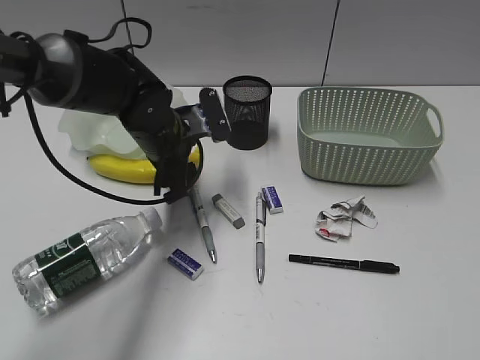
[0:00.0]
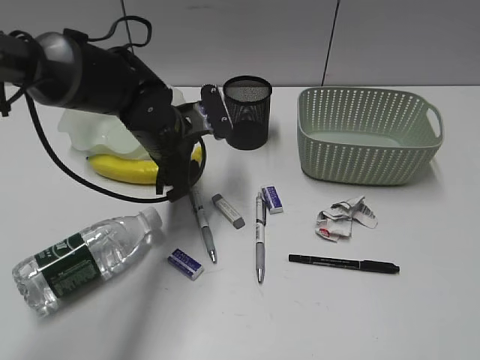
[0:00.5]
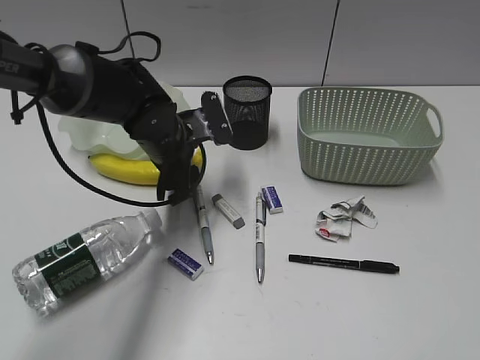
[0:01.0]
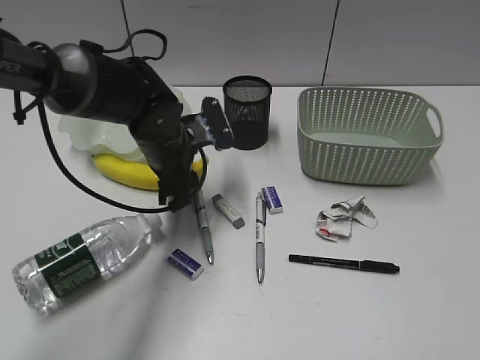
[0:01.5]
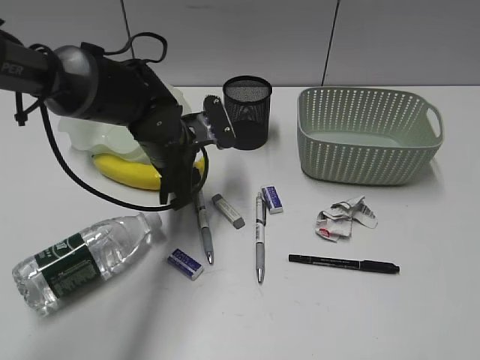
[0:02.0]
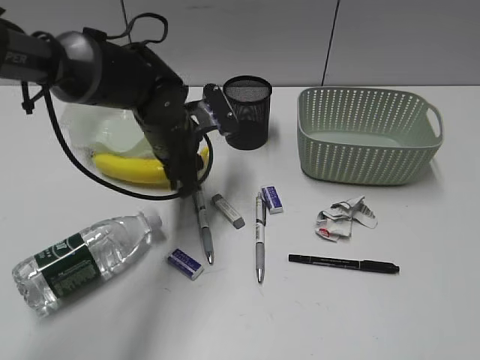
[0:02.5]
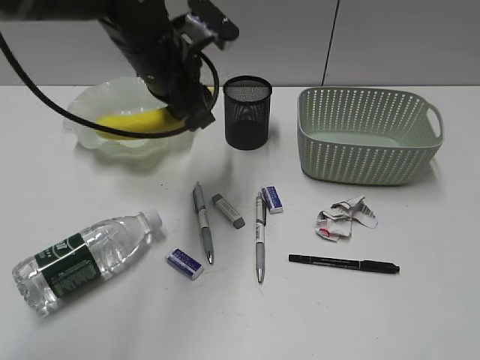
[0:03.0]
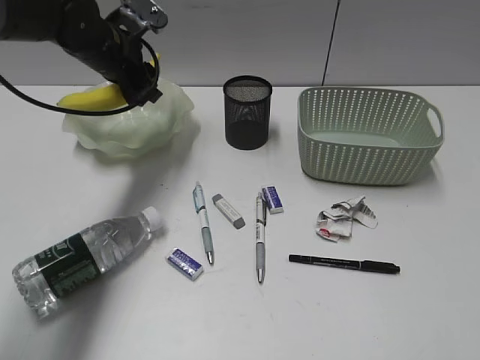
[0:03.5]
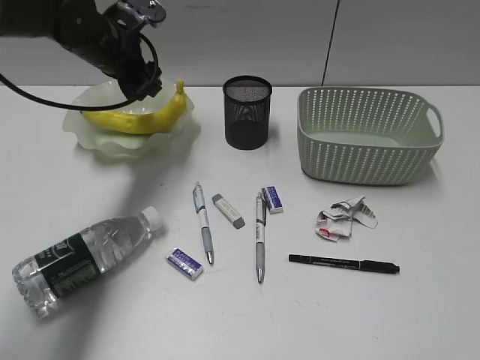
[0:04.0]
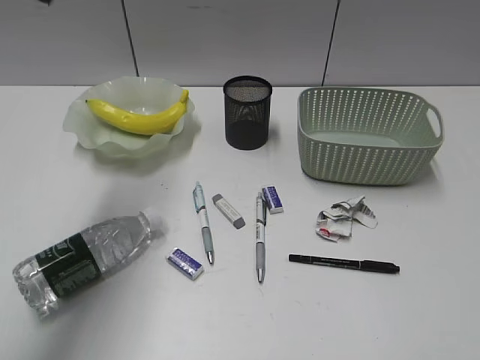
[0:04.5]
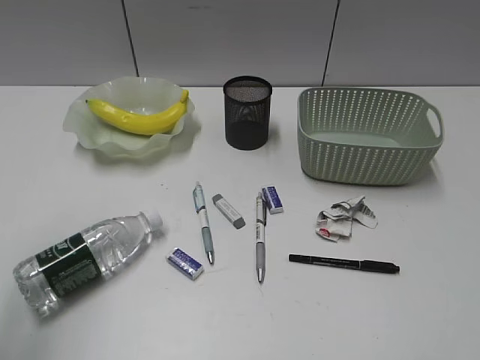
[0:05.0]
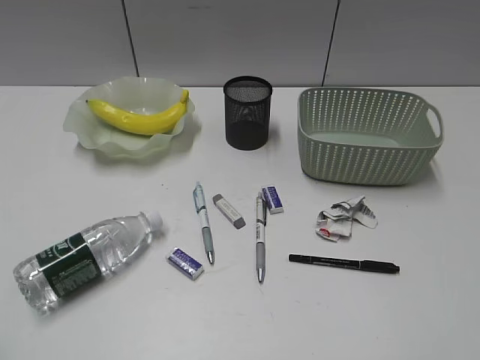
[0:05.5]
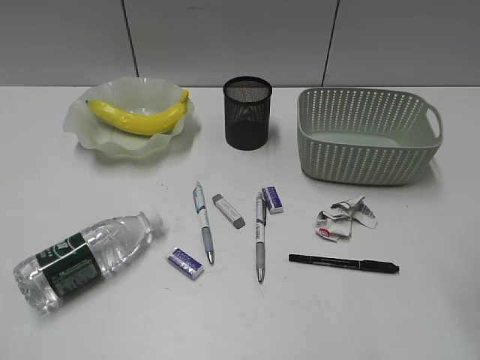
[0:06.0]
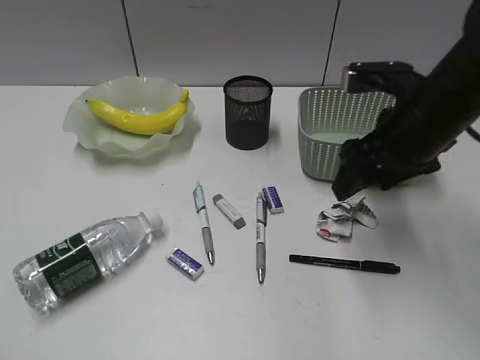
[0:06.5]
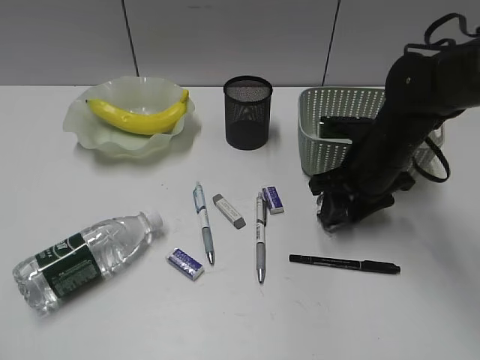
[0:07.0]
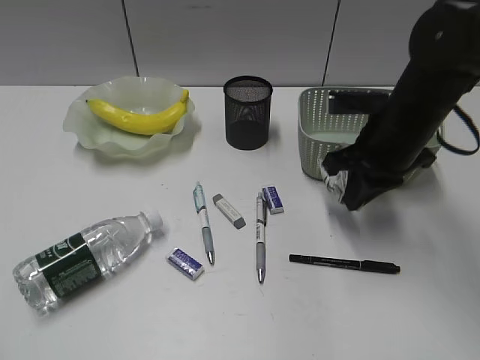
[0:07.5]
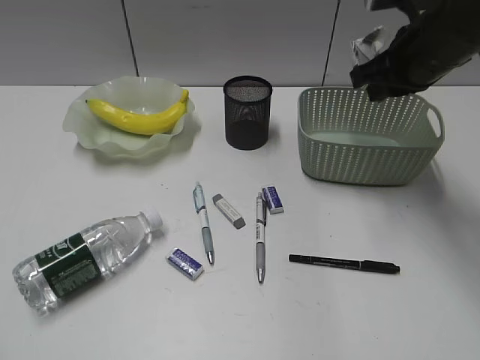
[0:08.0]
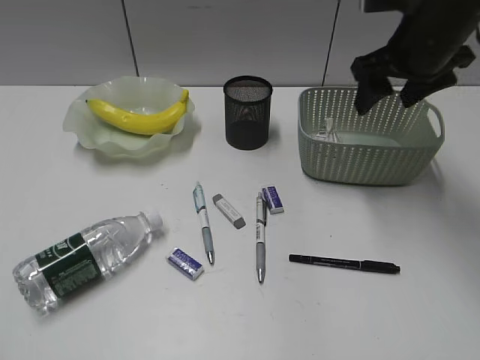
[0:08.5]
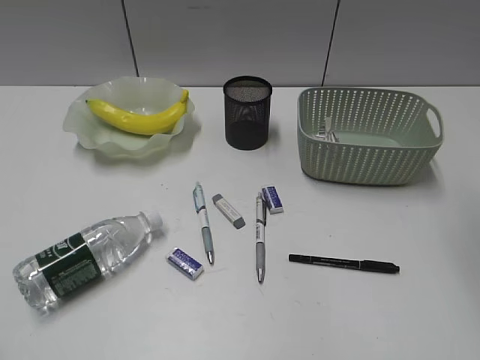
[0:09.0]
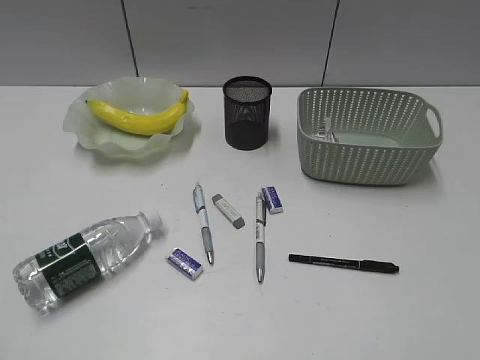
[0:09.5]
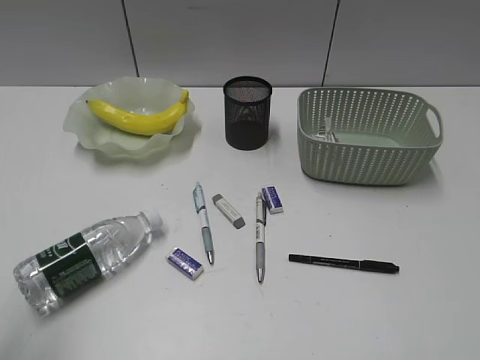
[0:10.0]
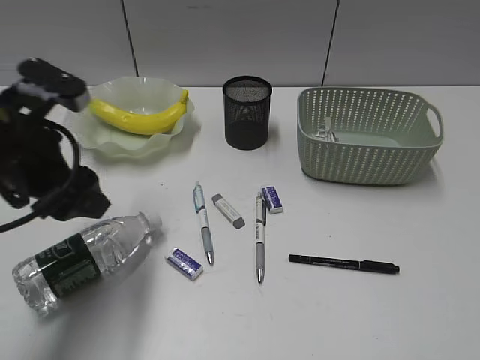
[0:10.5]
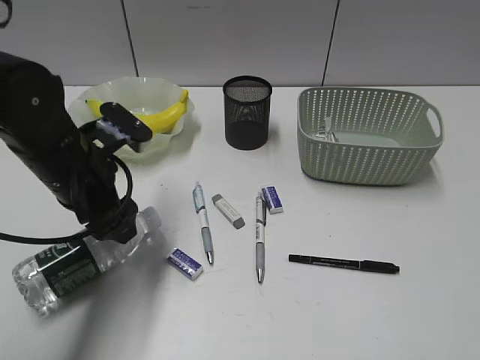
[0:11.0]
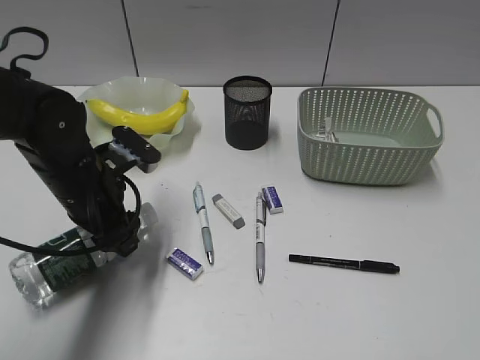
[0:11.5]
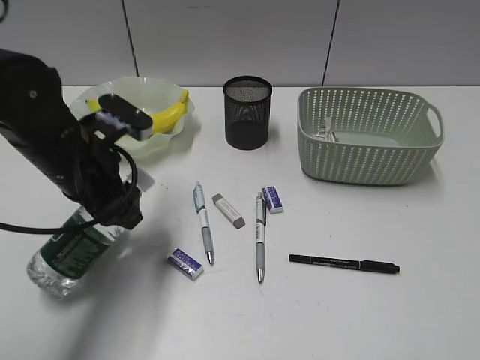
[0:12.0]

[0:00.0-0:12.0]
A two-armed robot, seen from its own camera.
Step, 0:00.0 to 0:02.0: Grasp the banana with left gripper.
Step, 0:02.5 to 0:03.5: Place the banana in the plate with left gripper.
Step, 0:04.0 to 0:07.0: Grasp the waste paper with right gripper.
Step, 0:07.5 to 0:08.0: Place the waste paper in the basket with right gripper.
Step, 0:08.5 to 0:11.5: Grasp the bottle with left gripper.
0:00.0 to 0:02.0: Neither gripper changes place.
0:02.0 to 0:04.0: The left gripper travels upward, forward and to the left by roughly 15 cm.
0:04.0 to 0:06.0: The right gripper shifts some 10 cm forward; the left gripper goes about 50 cm backward, and closes.
0:06.0 to 0:08.0: The right gripper is displaced forward by approximately 25 cm, and closes.
0:08.0 to 0:10.0: The left gripper shifts about 5 cm forward. The right gripper moves backward, roughly 35 cm, and opens up.
0:10.0 to 0:12.0: The left gripper is displaced forward, downward and to the right by approximately 30 cm.

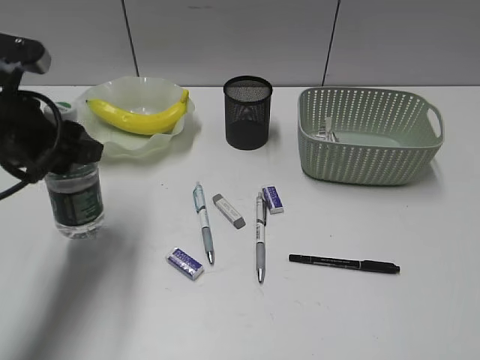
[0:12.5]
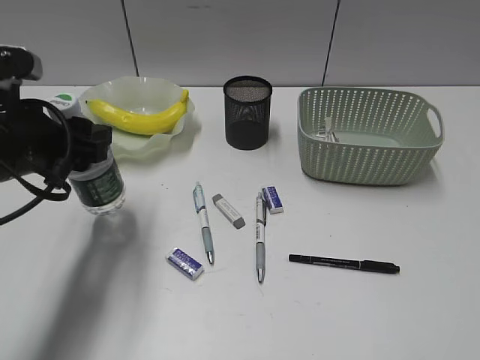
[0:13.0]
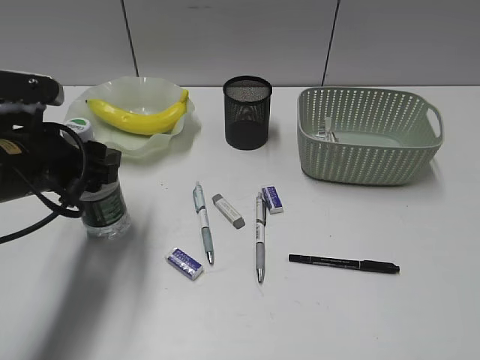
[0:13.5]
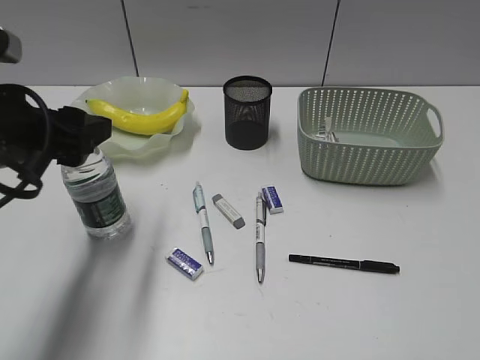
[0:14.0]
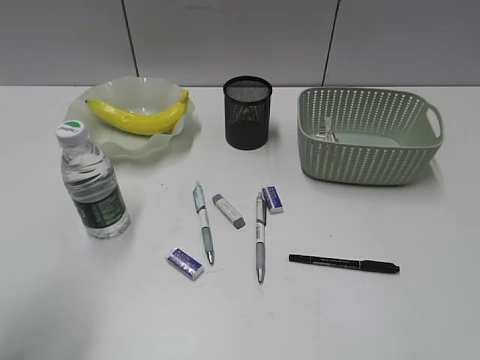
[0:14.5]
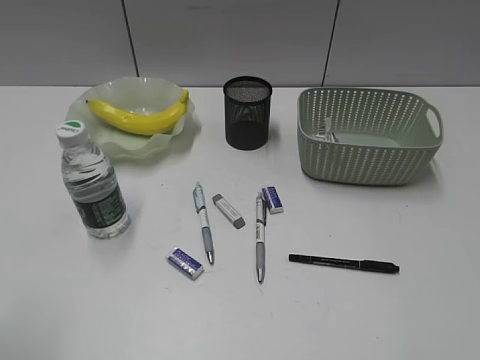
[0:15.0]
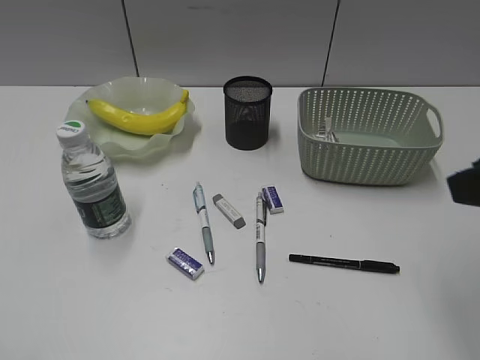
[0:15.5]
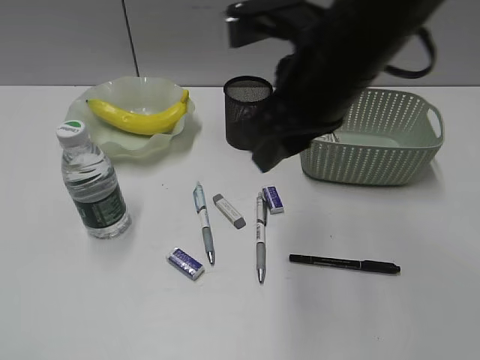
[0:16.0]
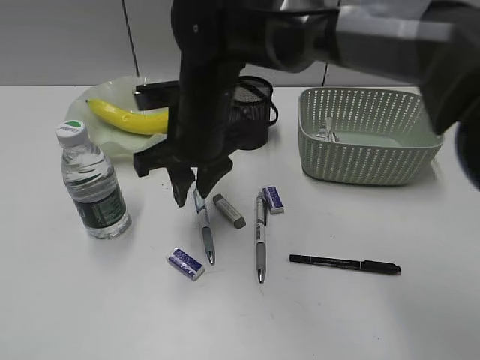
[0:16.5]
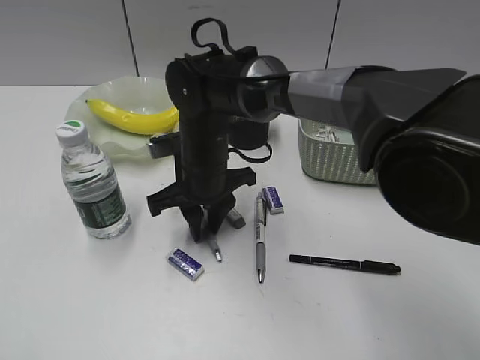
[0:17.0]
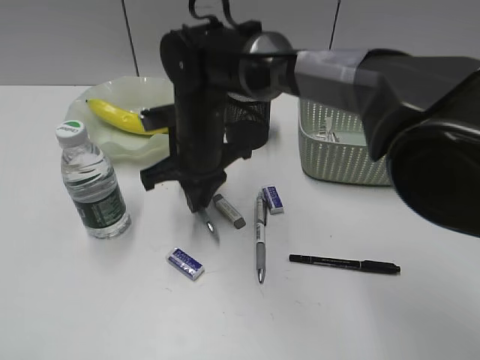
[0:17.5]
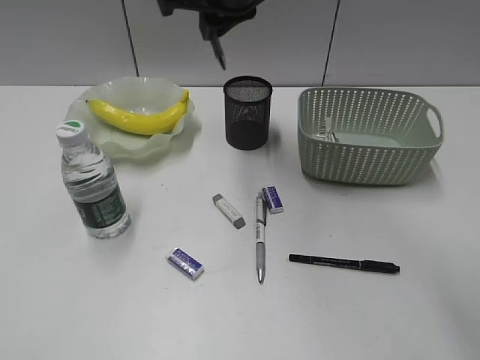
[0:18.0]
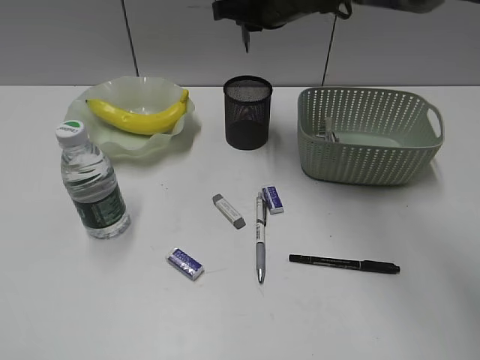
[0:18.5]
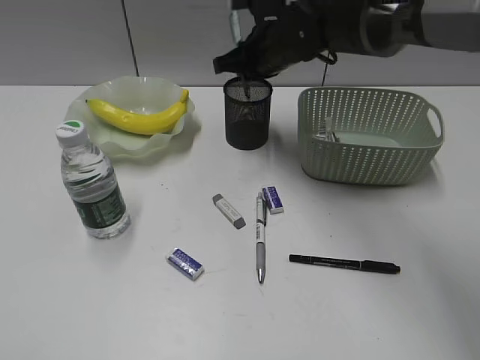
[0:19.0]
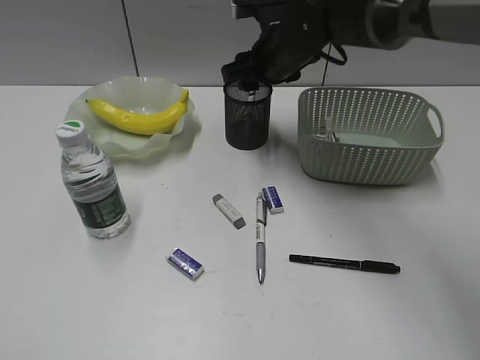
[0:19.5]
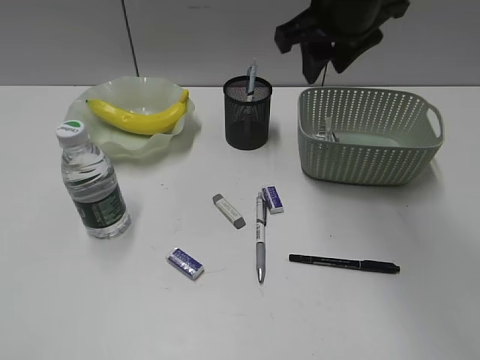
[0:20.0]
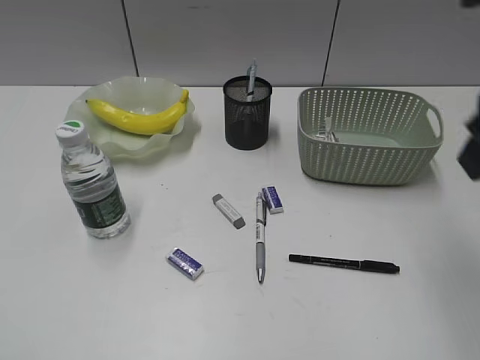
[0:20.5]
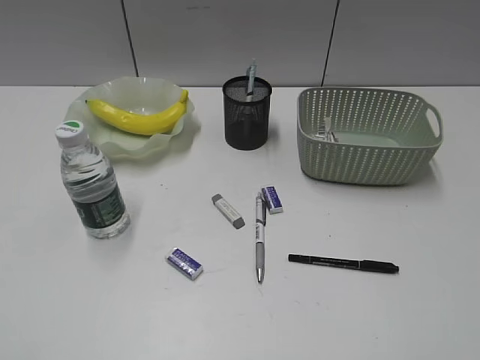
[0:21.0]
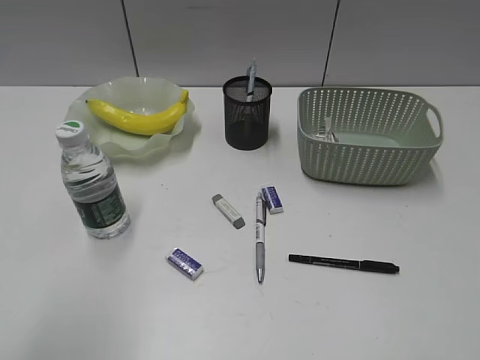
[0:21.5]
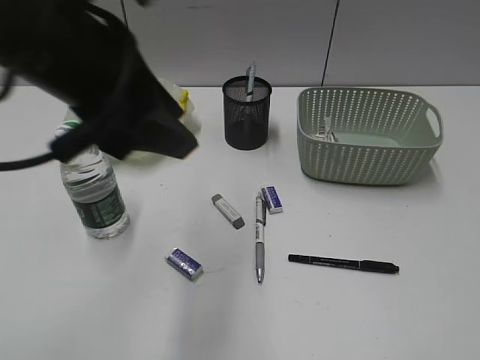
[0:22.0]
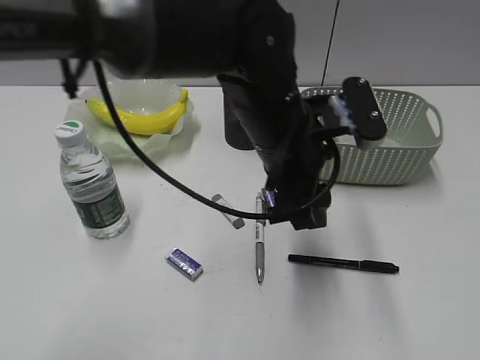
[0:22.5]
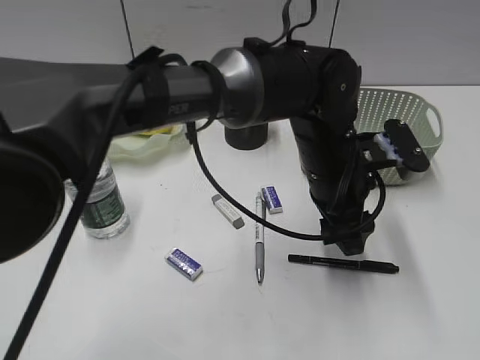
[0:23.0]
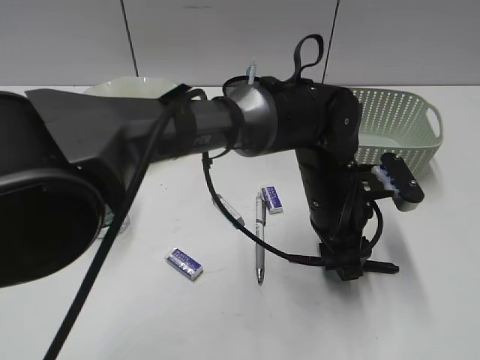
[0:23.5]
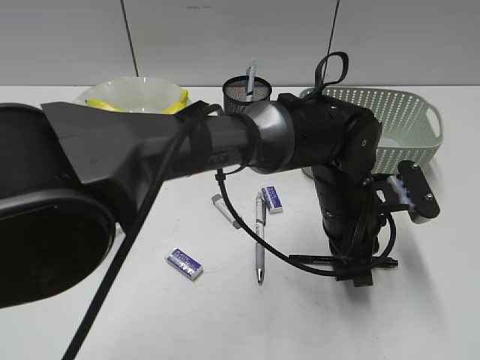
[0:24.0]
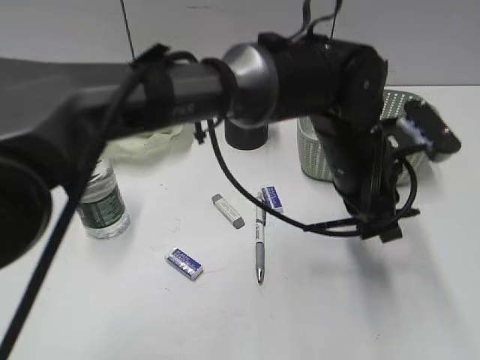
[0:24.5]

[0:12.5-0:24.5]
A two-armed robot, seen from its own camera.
Step, 0:12.5 to 0:14.0: Stand the bottle with left gripper.
Step, 0:14.5 to 0:17.0: Grasp the blue pen with right gripper.
Step, 0:17.5 to 0:19.5: Place the blue pen in pen holder with right gripper.
Step, 0:20.0 to 0:24.0: Grasp the black pen with left gripper.
0:12.5 to 0:14.5: The left gripper is displaced backward by about 15 cm.
0:14.5 to 0:16.5: The right gripper heads to the left and forward, covering approximately 50 cm. The left gripper is displaced backward by some 15 cm.
0:16.5 to 0:18.5: The right gripper goes up and down, some 20 cm each way, reversing 2 times, and closes.
0:18.5 to 0:20.5: The right gripper travels backward and to the right by approximately 25 cm, and opens.
0:20.5 to 0:22.5: The right gripper goes roughly 25 cm backward and to the right. Meanwhile the left gripper moves to the right and forward, some 40 cm.
0:22.5 to 0:24.5: The left gripper goes roughly 10 cm to the right and downward, and closes up.

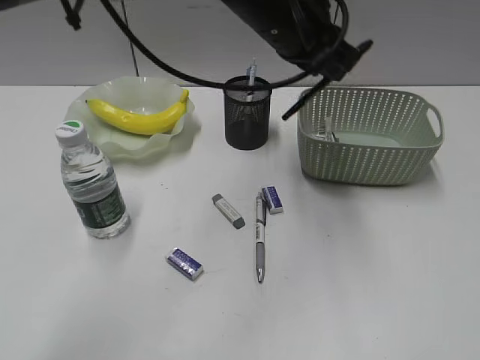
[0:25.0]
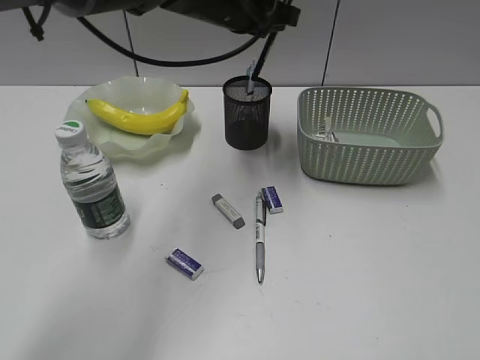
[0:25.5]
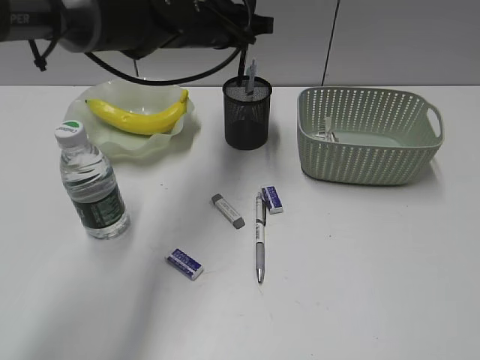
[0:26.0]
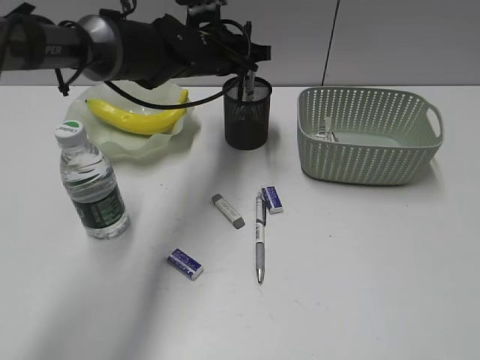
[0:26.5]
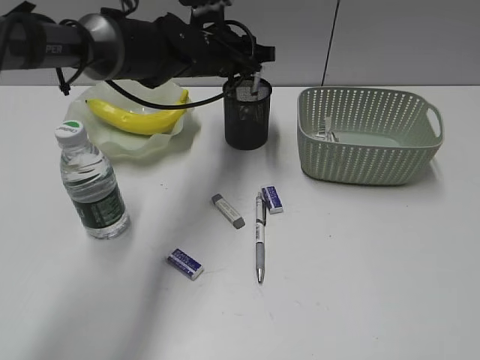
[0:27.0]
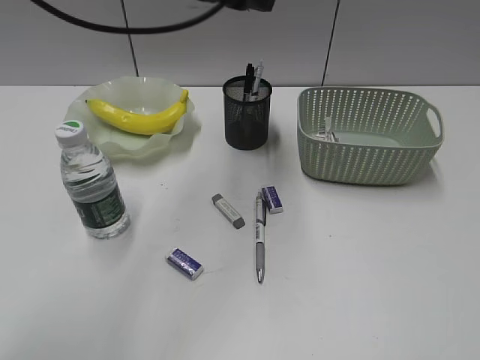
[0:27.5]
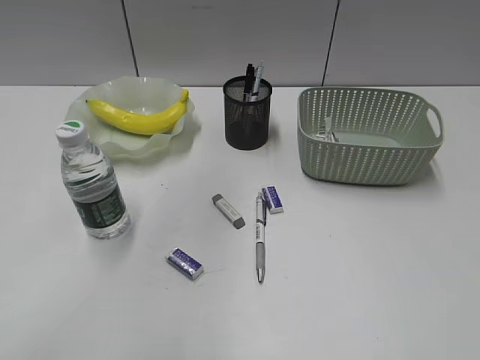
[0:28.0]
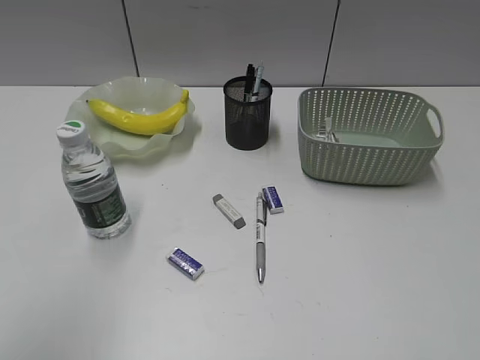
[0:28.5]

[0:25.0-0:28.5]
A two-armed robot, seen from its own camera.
Step, 0:25.0 to 0:27.0: Place the black pen in pen holder with left gripper.
0:25.0 to 0:27.0: The left gripper travels forward, downward and to the left by about 15 cm, and opens.
0:27.0 to 0:28.5: The left gripper is displaced backward, upward and to the left by about 50 cm.
